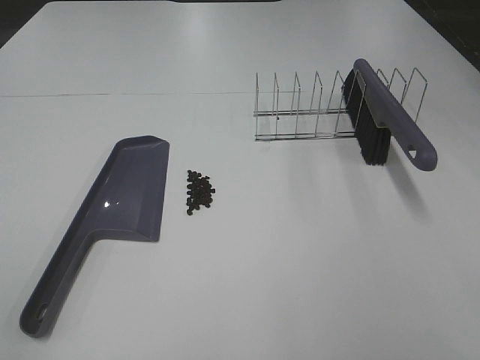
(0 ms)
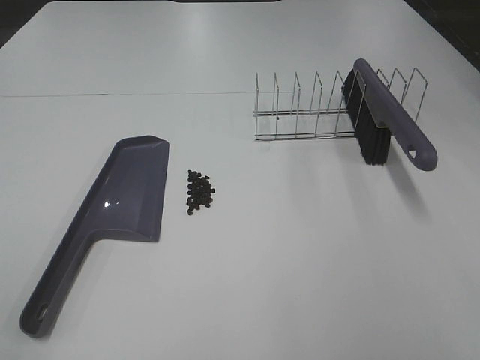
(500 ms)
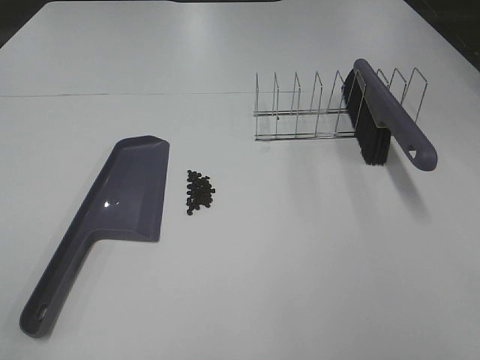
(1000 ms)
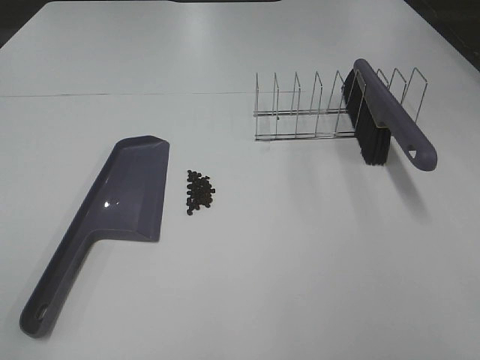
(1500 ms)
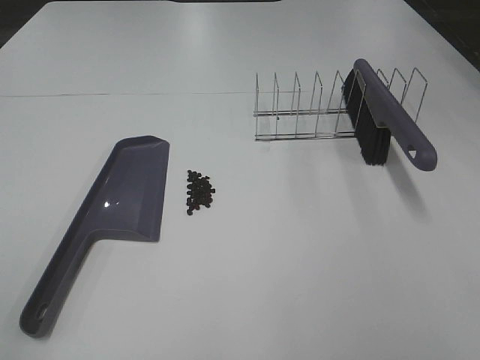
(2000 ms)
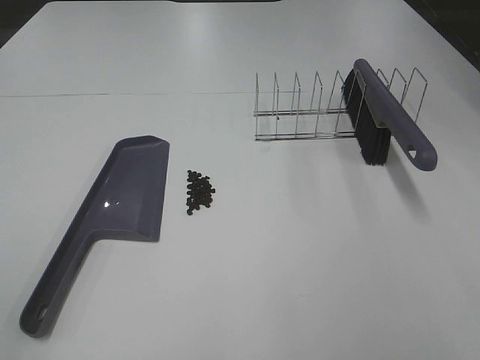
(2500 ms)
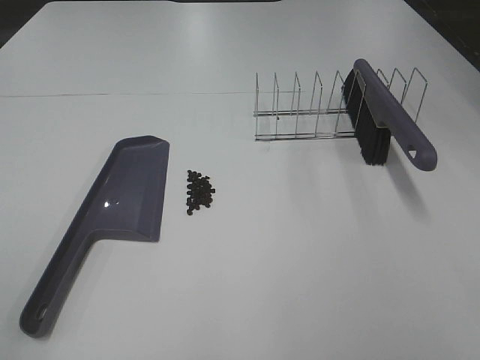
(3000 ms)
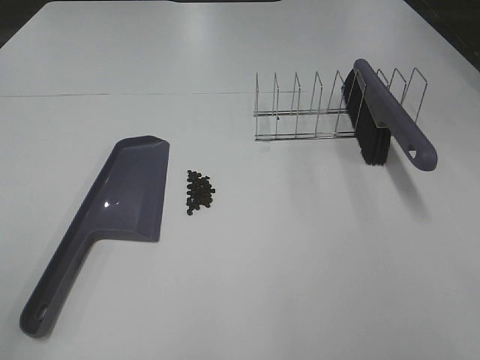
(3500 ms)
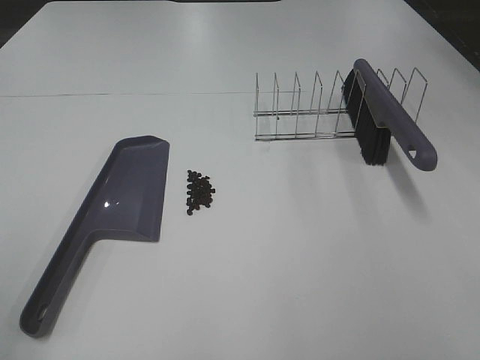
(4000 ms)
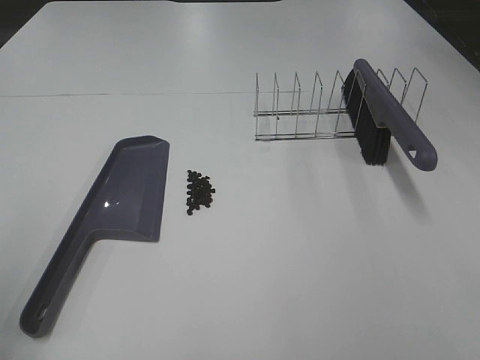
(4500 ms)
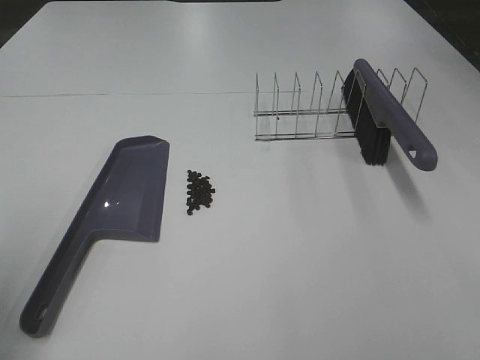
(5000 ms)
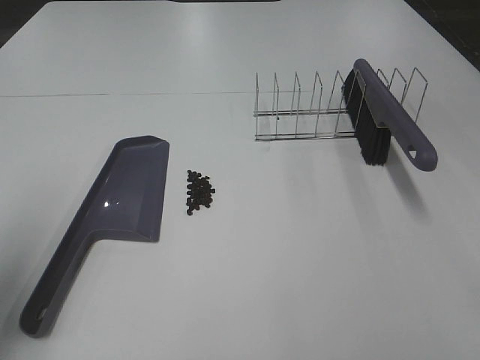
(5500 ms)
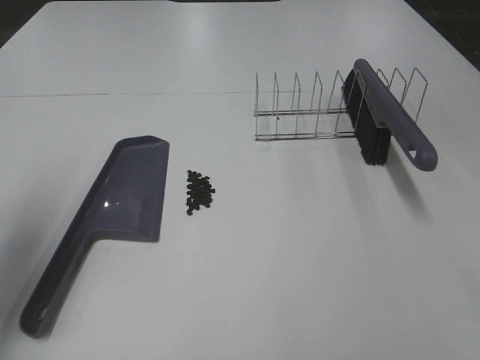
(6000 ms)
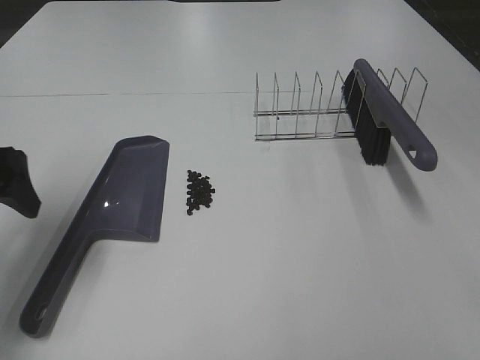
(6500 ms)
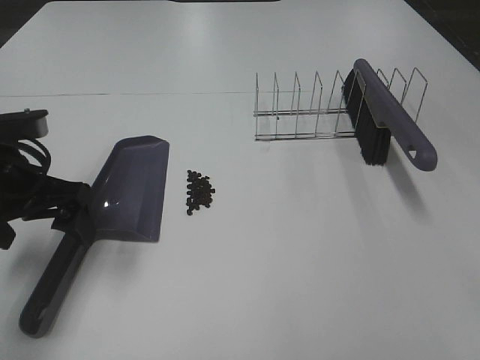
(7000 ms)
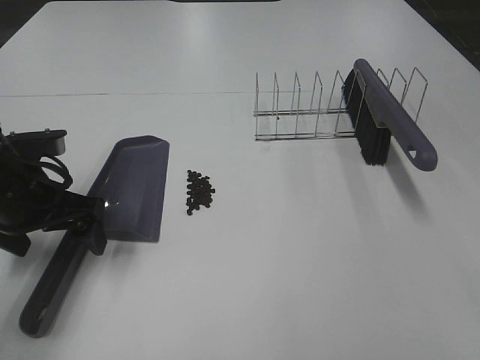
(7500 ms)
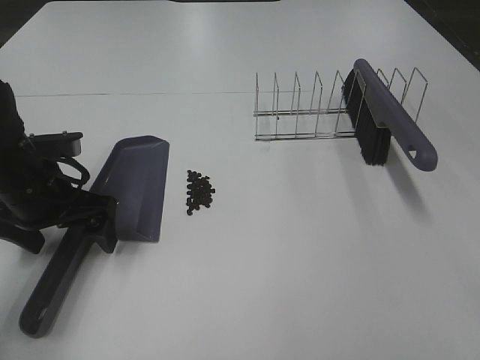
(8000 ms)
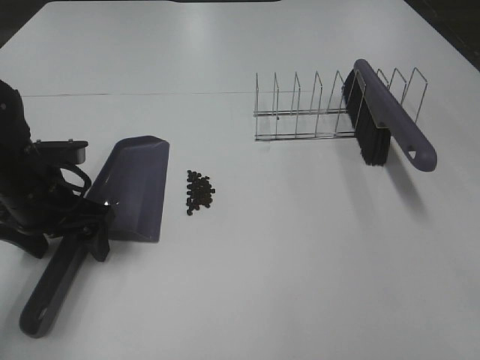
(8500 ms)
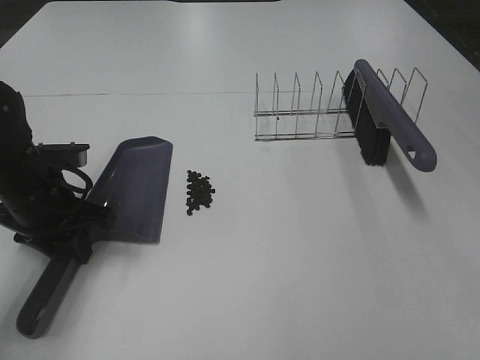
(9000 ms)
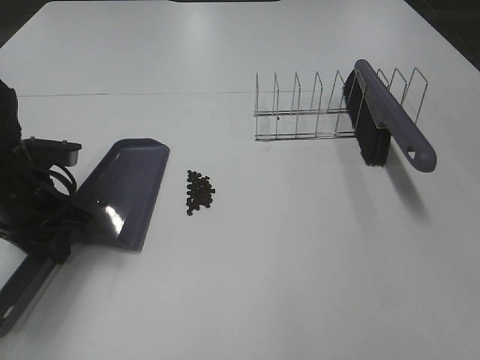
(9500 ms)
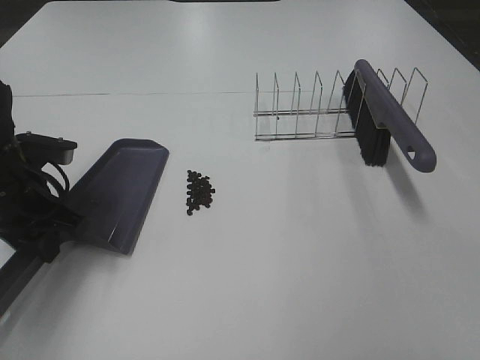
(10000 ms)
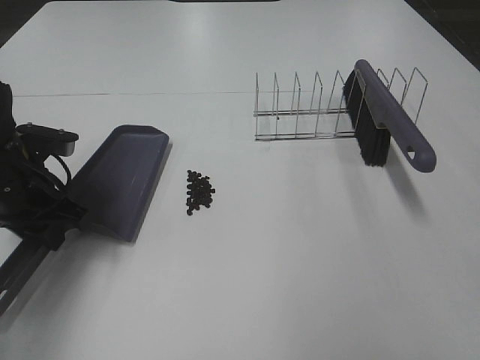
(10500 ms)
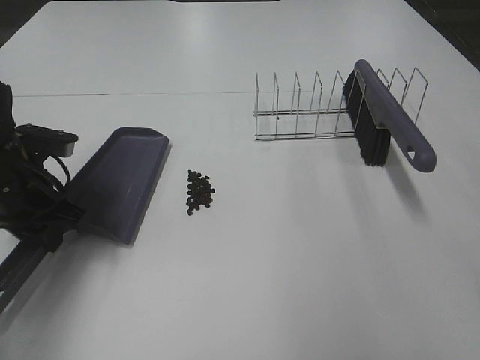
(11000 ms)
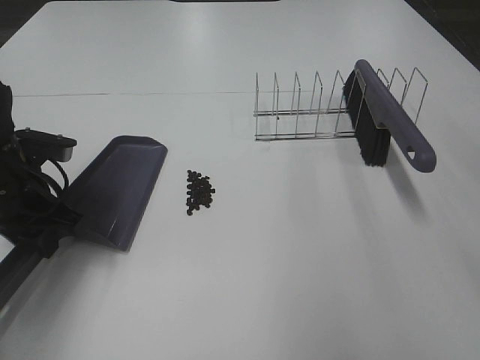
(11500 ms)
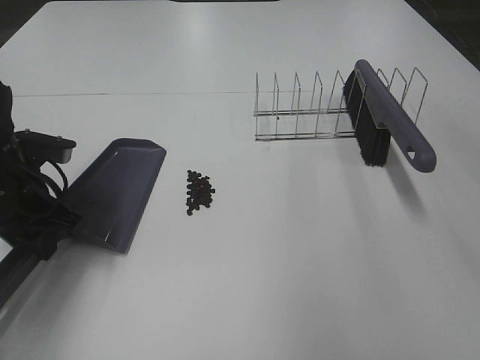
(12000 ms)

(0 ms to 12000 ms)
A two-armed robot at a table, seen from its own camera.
Task of the whole recording: Sweep Coffee Bean.
Step, 0 ms - 8500 ms: Left hand: grab the dustpan.
0 ms - 2000 ms: Both grippers stay about where they are.
4000 ms - 6000 ms: The left gripper moves forward, some 20 cm.
6000 ms - 8000 ms: The left gripper is displaced downward, to the right and forward by some 15 cm.
8000 ms - 10000 ms: The left gripper closes its fingers.

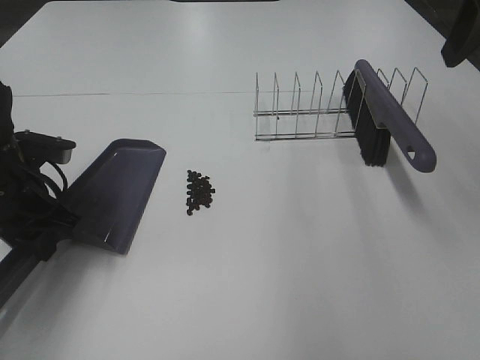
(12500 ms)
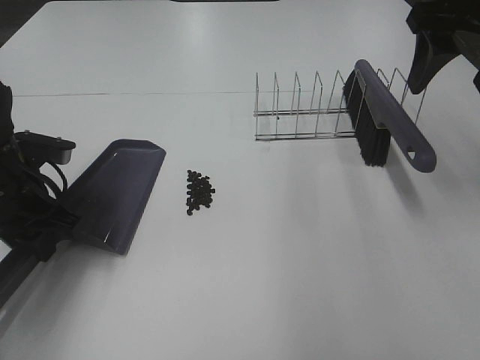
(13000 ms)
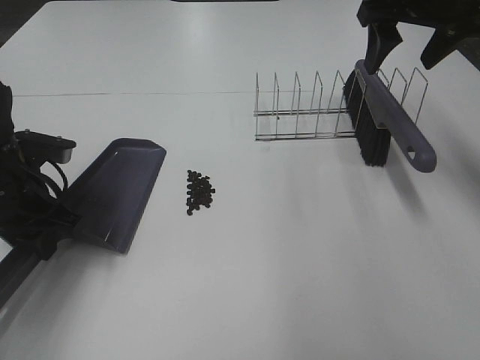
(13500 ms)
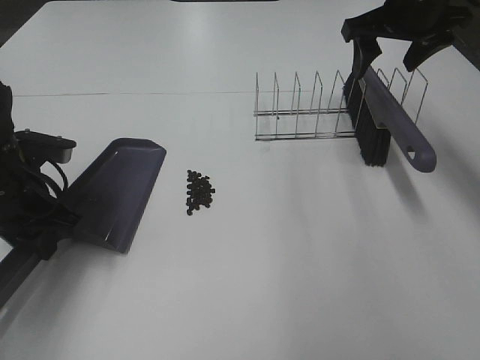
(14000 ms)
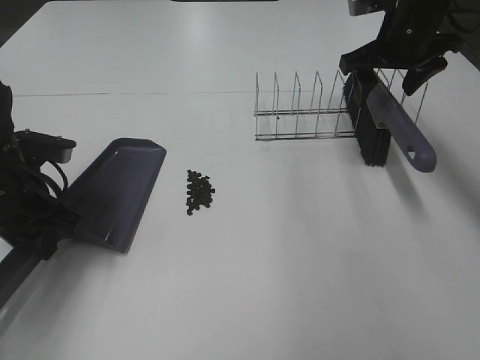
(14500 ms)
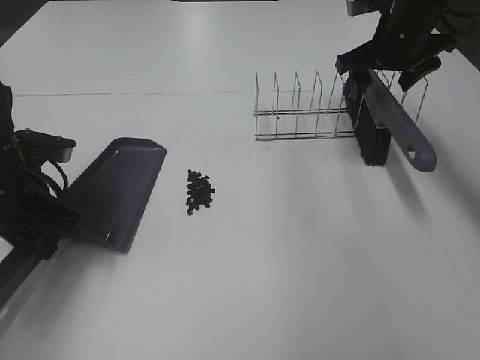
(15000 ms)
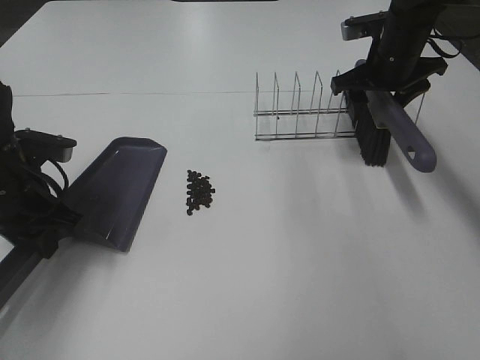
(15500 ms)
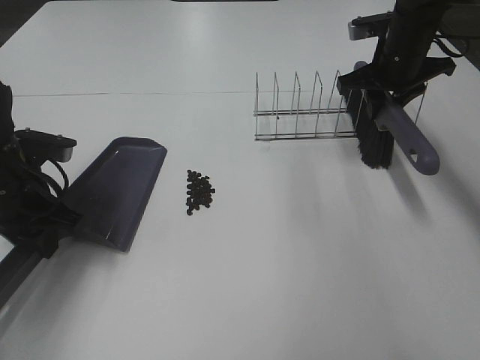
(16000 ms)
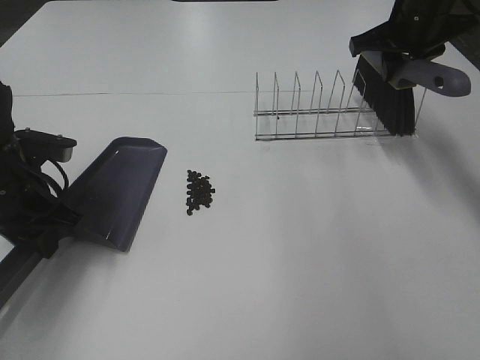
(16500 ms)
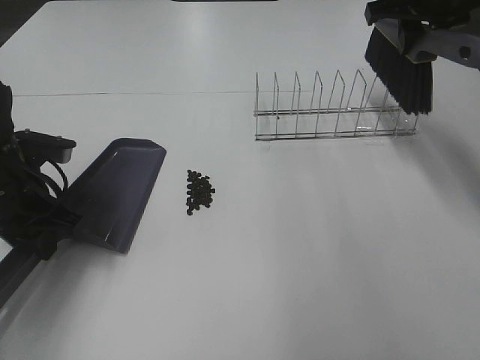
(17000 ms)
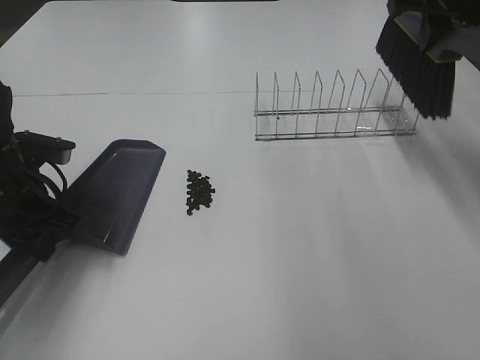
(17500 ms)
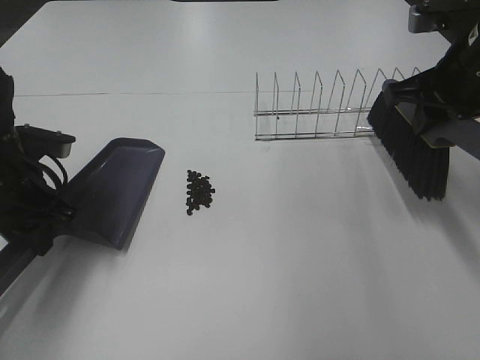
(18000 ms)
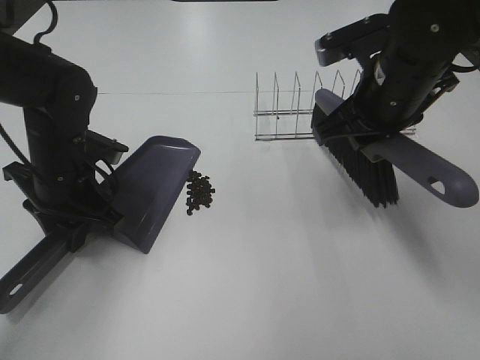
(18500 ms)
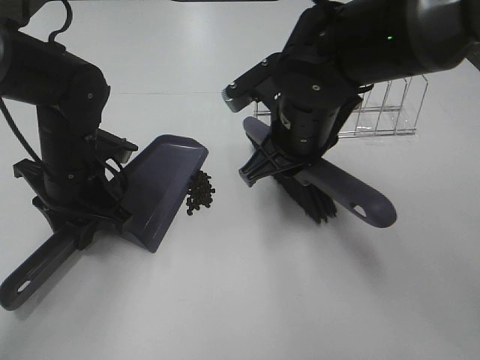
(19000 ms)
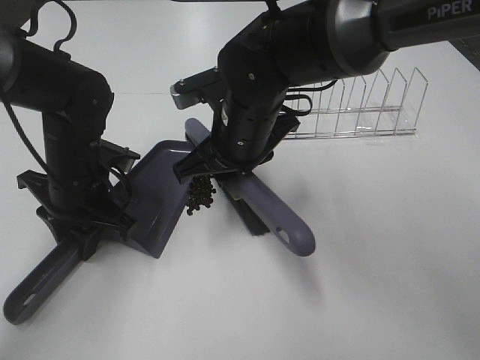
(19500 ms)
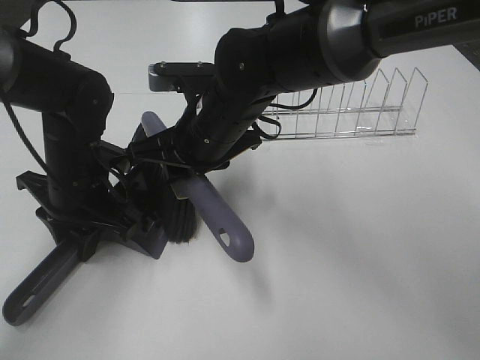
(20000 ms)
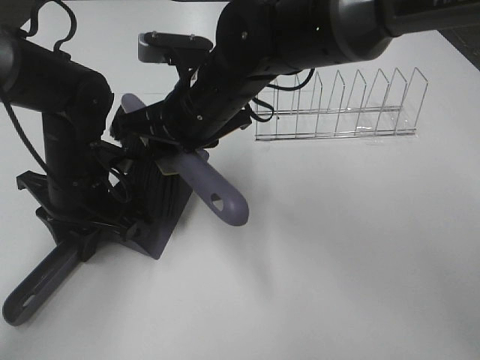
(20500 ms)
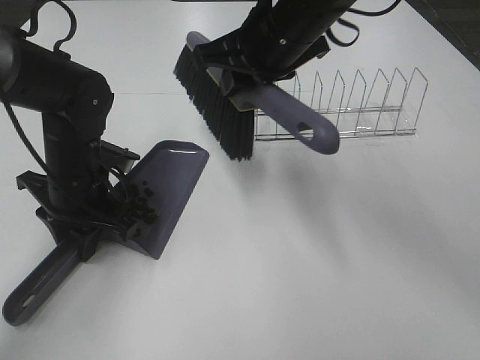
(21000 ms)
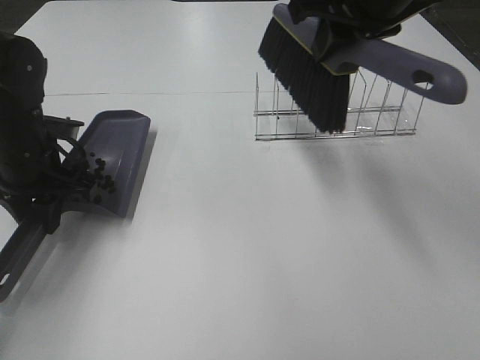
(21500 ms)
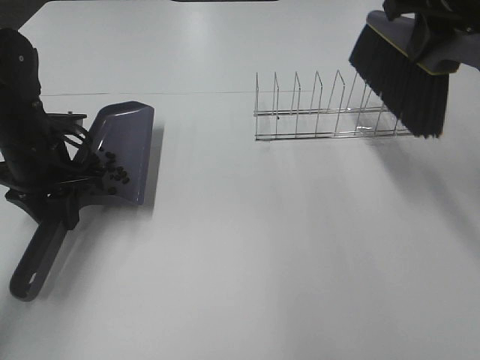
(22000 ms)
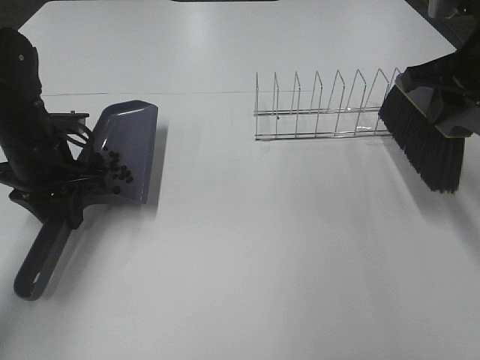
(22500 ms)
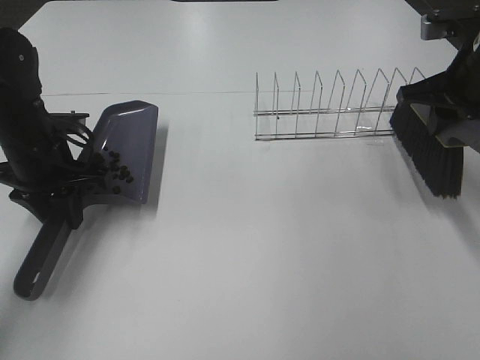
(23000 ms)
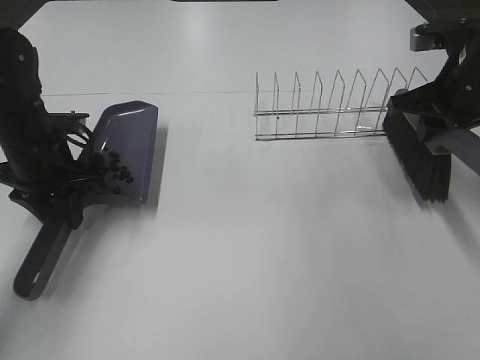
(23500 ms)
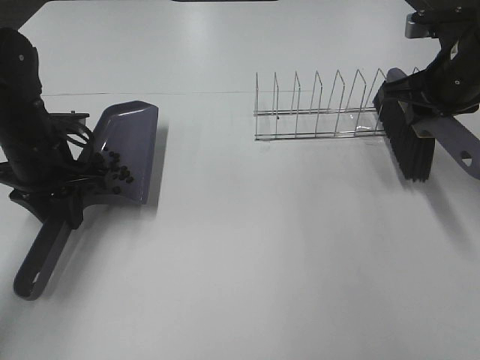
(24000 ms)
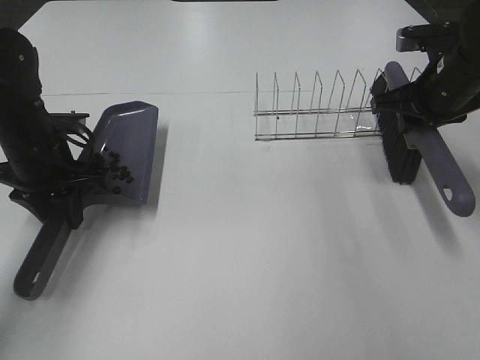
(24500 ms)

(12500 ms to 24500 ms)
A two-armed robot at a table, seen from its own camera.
Task of the whole recording: Sweep Coffee Bean.
Step, 12500 ms - 15500 ms: Right hand:grab the broom.
Step, 16000 ms - 20500 ms: Right hand:sweep the coffee beans into the dustpan.
12500 ms - 14500 ms: The right gripper shifts some 20 cm forward and downward.
14500 ms - 16500 ms: The right gripper closes up.
16500 ms - 18500 ms: The left gripper moves to the right, approximately 5 cm; the right gripper goes about 15 cm backward and to the left.
18500 ms - 20500 ms: The right gripper goes approximately 15 cm to the left.
20500 ms - 22500 ms: The right gripper heads to the right, covering roughly 30 cm. Meanwhile the left gripper goes approximately 5 cm to the left.
22500 ms - 24500 ms: The right gripper moves downward and forward, some 10 cm.

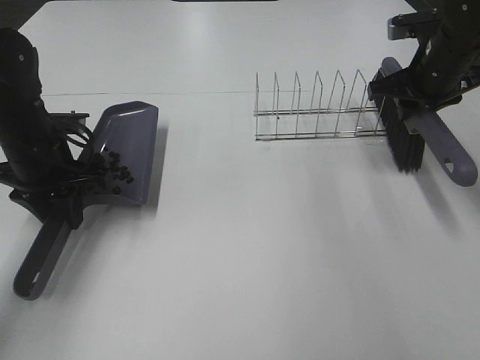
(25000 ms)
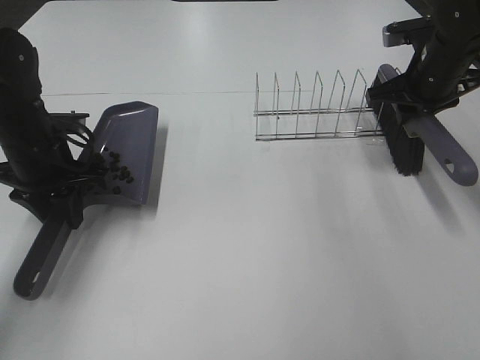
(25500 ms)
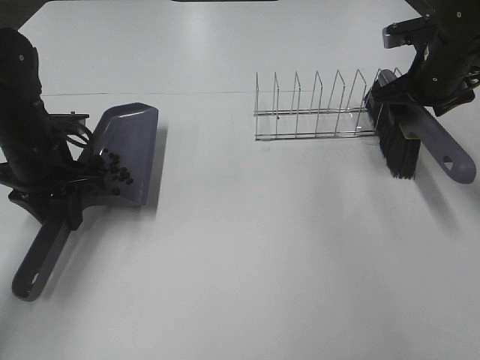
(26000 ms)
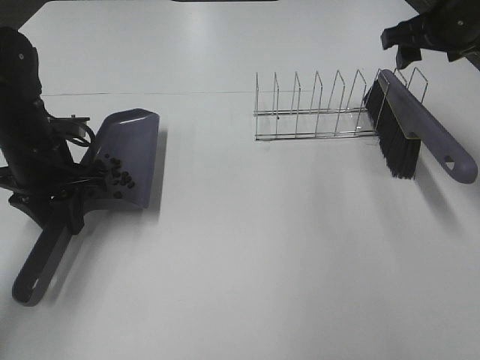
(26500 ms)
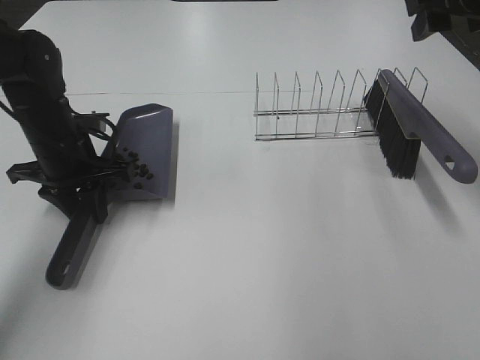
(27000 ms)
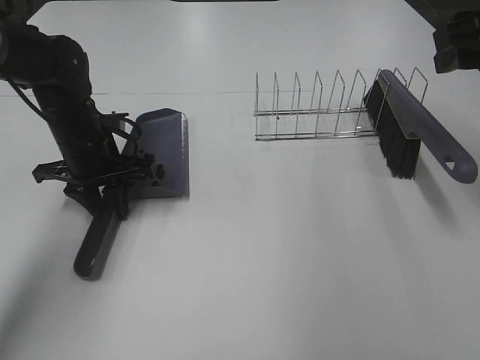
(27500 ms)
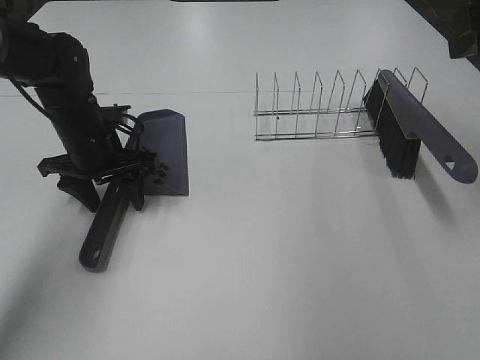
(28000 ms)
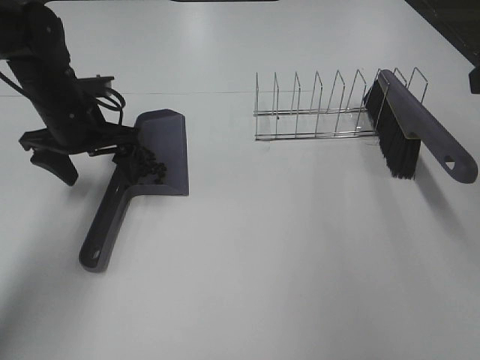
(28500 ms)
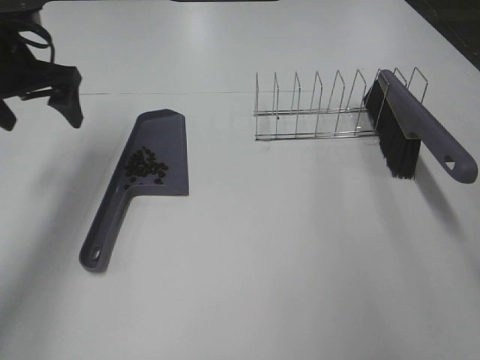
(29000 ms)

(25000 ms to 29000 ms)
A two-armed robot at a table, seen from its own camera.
Task of the whole recording: Sweep Coffee Bean.
Step, 26000 ms - 28000 ms: Left hand:place the dustpan on the table.
25000 ms - 27000 ms: The right gripper moves upward and backward, about 15 cm, and opens up.
27000 ms - 29000 ms: The right gripper is displaced backward by about 20 cm; the left gripper travels upward and to the left by approximately 15 cm, and opens.
